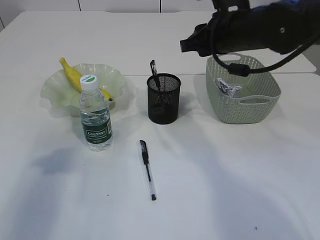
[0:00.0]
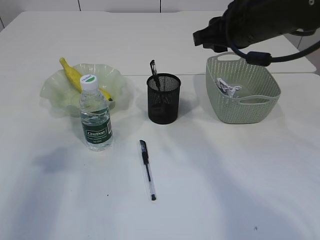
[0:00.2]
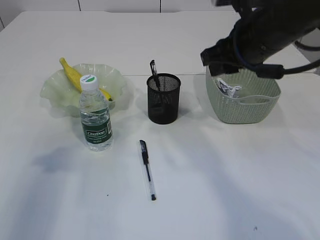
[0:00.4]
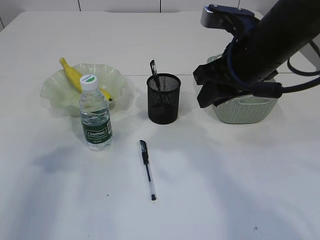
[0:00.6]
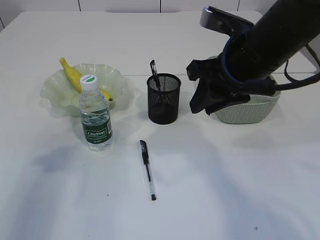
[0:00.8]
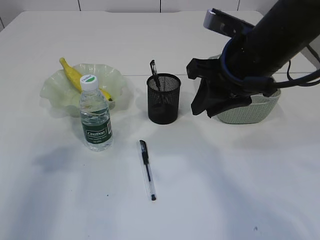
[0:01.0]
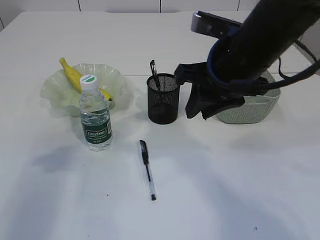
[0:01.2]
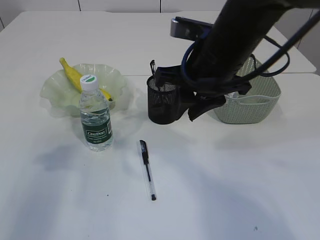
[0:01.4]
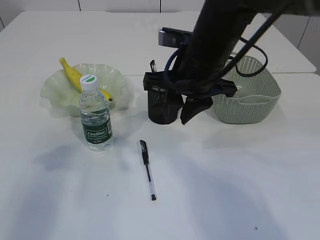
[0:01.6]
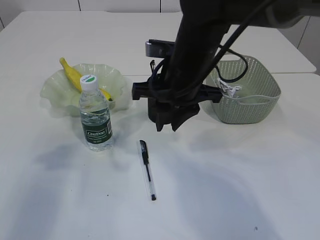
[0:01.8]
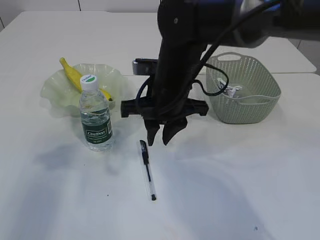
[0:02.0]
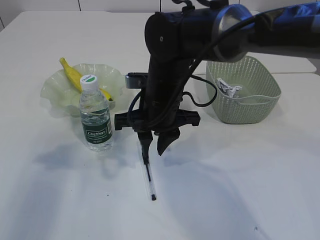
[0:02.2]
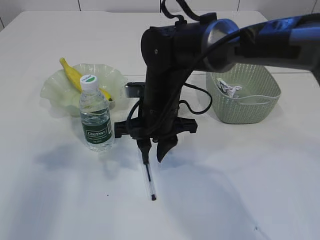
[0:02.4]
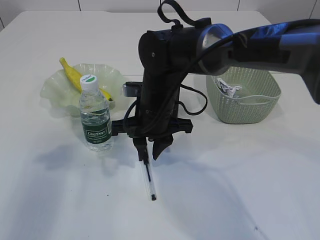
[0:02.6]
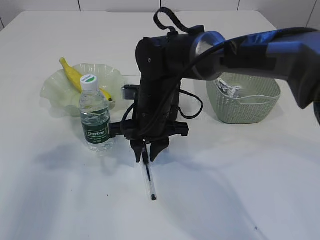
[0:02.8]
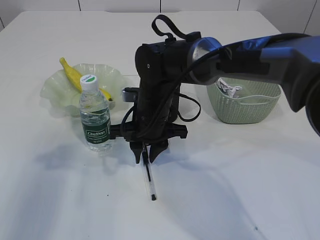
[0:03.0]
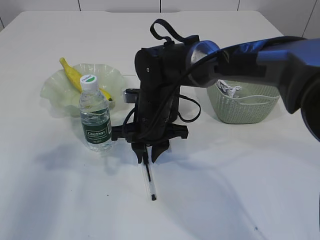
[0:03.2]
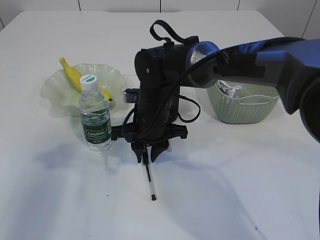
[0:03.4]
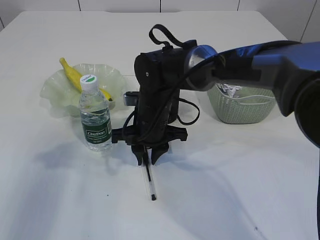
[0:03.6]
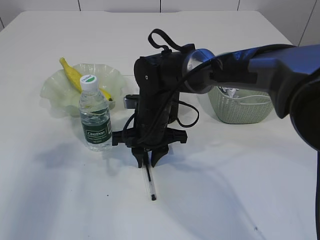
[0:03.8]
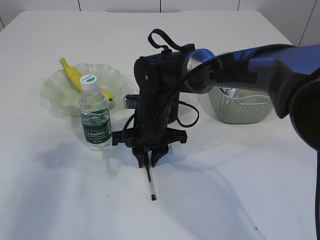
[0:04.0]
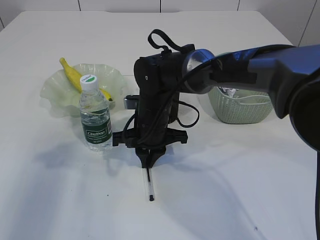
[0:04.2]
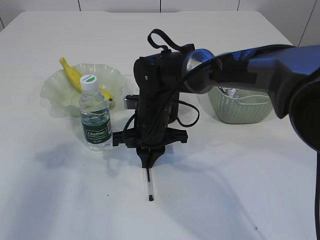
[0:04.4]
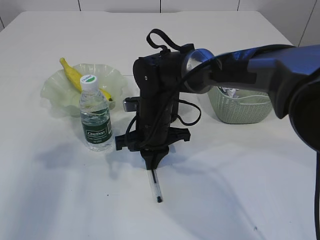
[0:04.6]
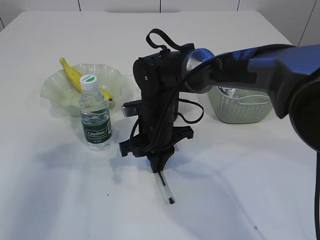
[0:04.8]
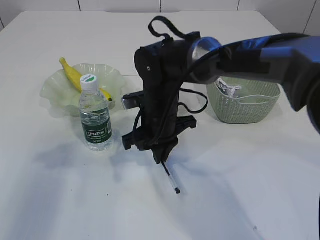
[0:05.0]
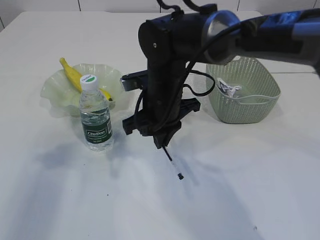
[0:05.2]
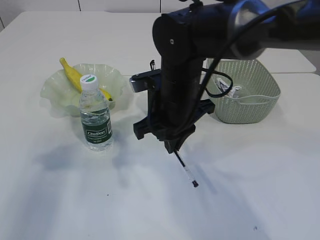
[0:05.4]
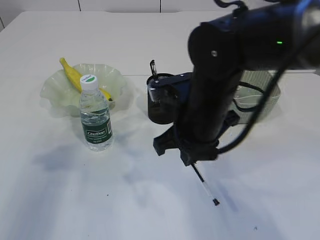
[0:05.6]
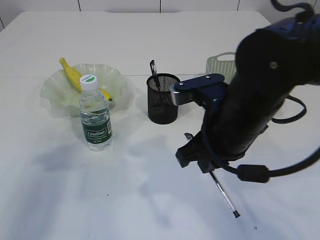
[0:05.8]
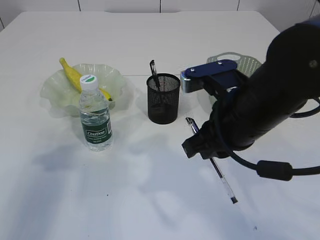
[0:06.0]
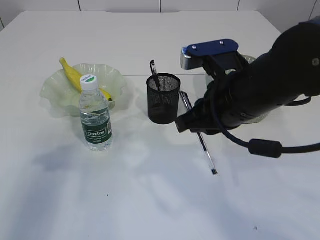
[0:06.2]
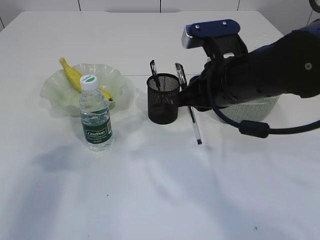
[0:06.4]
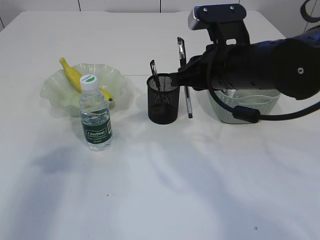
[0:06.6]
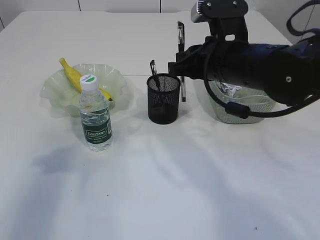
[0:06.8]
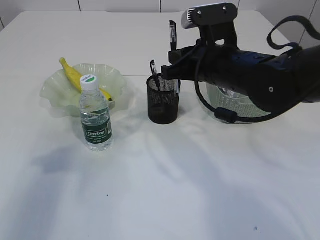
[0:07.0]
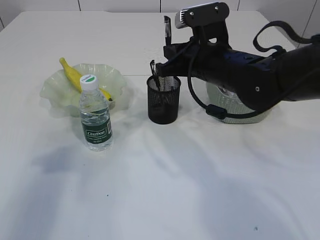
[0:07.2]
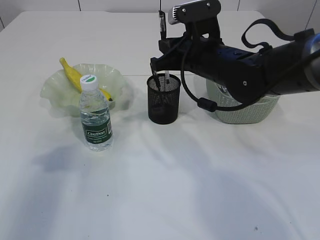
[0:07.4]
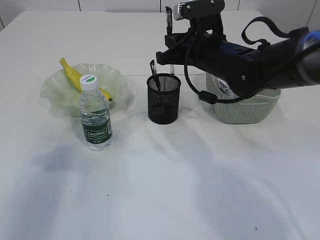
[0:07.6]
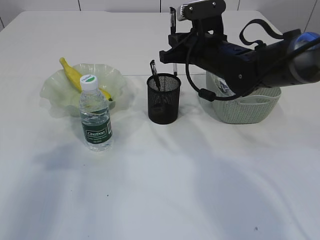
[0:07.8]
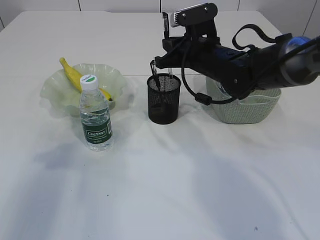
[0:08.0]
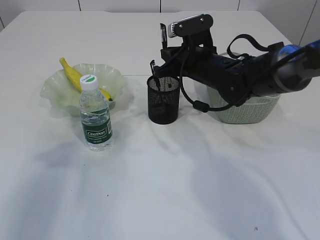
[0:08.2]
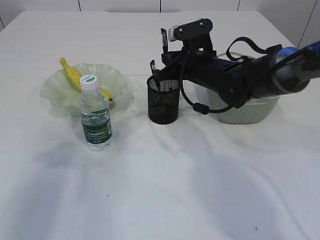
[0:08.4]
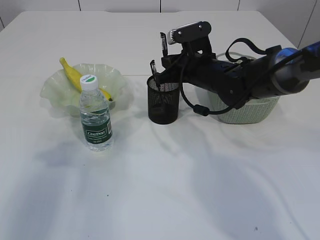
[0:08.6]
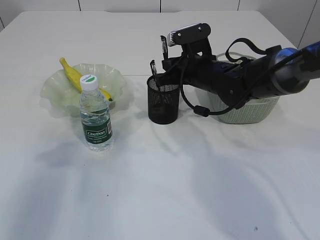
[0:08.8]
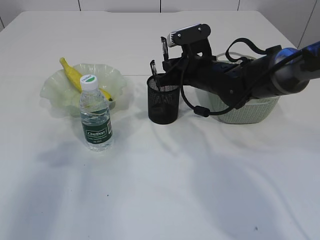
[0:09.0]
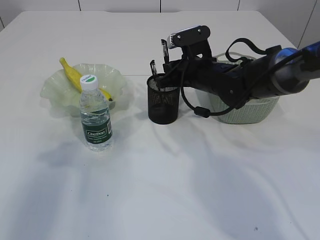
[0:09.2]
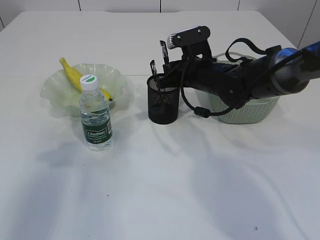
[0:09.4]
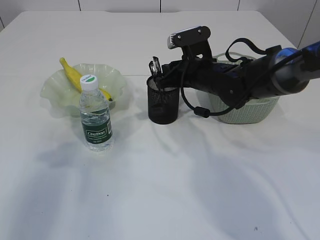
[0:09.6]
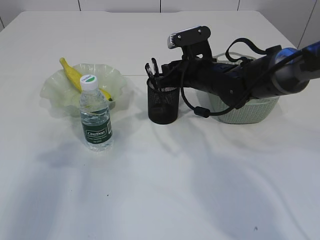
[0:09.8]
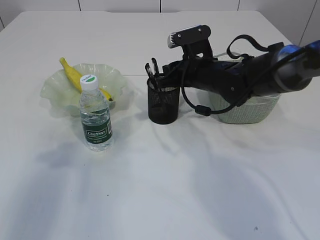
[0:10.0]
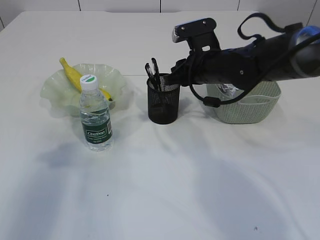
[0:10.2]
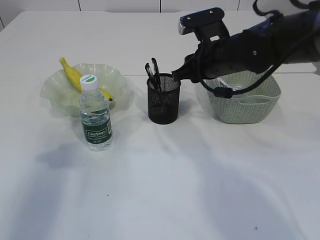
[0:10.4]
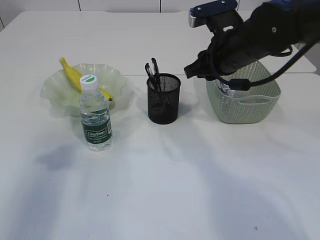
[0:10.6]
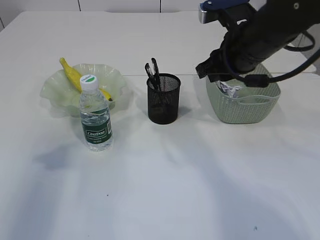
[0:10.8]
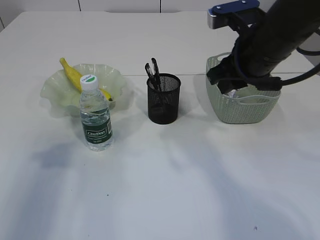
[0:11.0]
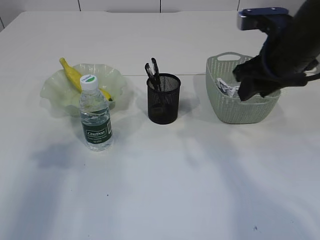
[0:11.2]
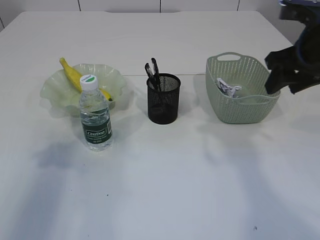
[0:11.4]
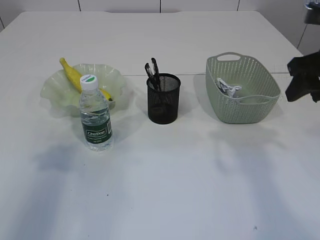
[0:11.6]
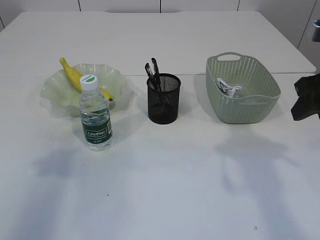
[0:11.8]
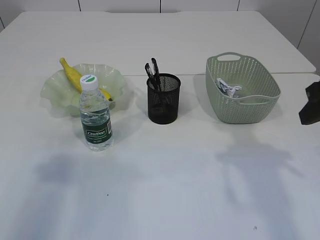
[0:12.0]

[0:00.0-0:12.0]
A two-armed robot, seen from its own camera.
Step, 0:00.0 to 0:05.2: Pick up the pen with right arm.
Step, 0:05.4 to 0:10.4: Place the pen into the pen holder.
0:00.0 to 0:01.6: The right gripper travels to the left and backward by some 10 cm.
0:01.6 to 0:03.0: The right gripper travels downward and to the left by about 15 cm.
0:03.0 to 0:04.4: The right gripper closes its fingers.
0:04.4 to 0:06.0: The right gripper moves backward, upward and to the right, roughly 20 cm.
0:06.0 to 0:07.6: The right gripper is displaced forward by about 15 cm.
0:07.6 to 0:09.0: The right gripper moves downward, about 5 cm.
0:09.0 to 0:10.4: The right gripper changes place by approximately 5 cm.
0:10.4 to 0:12.0: The left gripper shifts about 5 cm backward. Meanwhile the right gripper heads backward, to the right and upward, covering approximately 20 cm, and opens up.

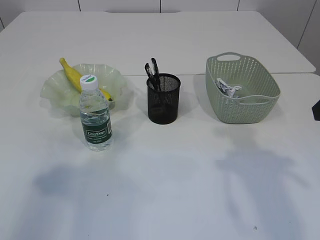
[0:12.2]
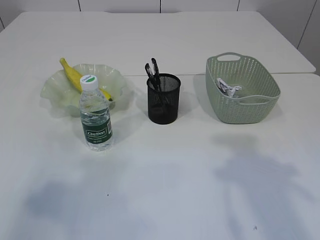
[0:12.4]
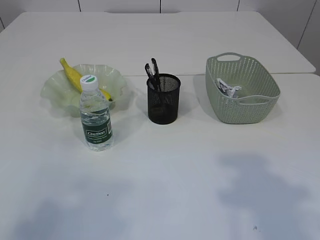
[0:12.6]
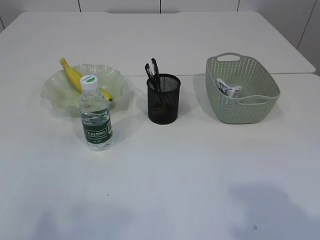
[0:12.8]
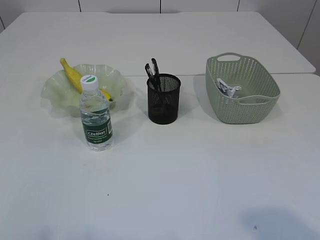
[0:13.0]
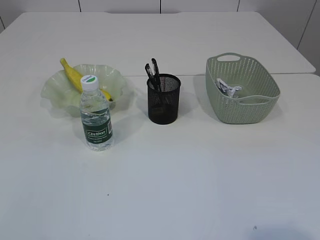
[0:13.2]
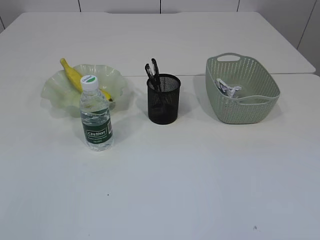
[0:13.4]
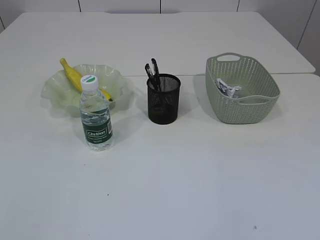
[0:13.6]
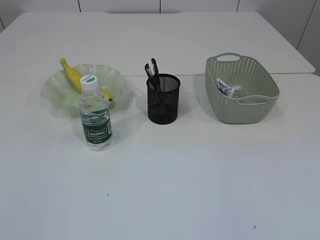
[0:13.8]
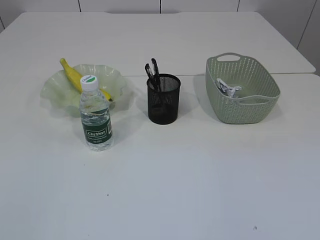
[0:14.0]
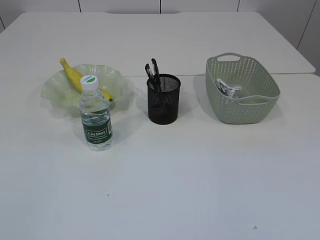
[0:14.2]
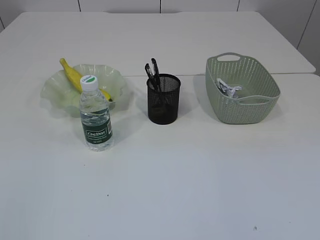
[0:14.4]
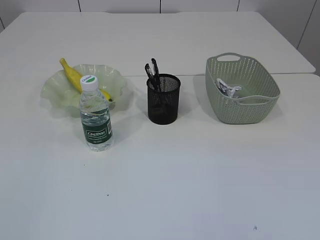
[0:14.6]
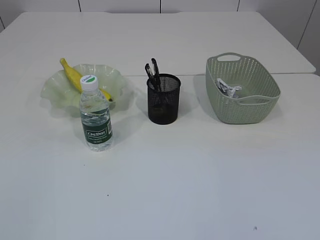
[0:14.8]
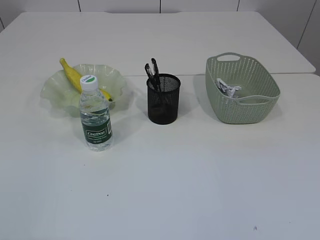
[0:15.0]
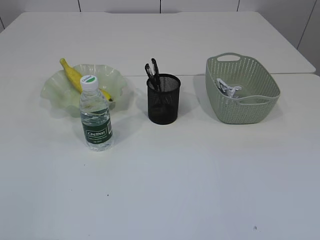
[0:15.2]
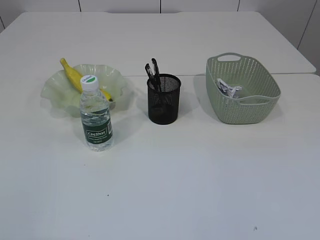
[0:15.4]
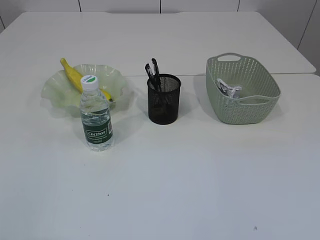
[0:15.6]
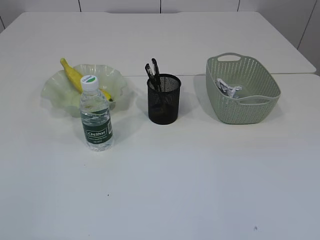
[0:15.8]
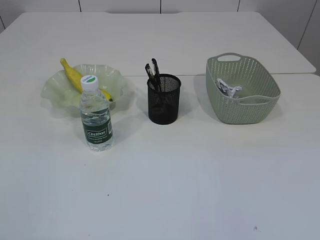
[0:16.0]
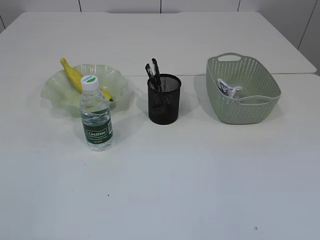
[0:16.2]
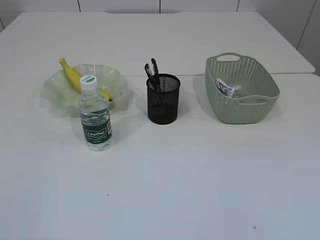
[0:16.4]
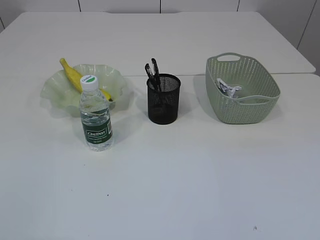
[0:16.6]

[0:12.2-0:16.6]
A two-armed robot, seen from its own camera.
0:12.2 to 0:13.6: The left gripper heads backward, covering about 20 cm.
0:15.2 to 0:16.6: Both grippers stay put.
